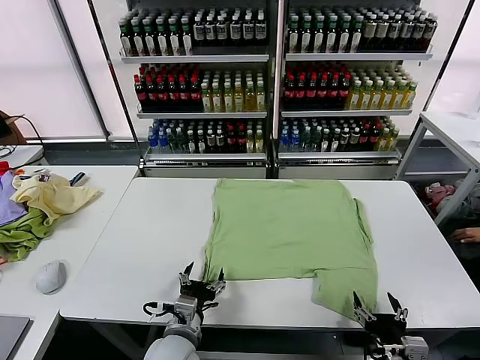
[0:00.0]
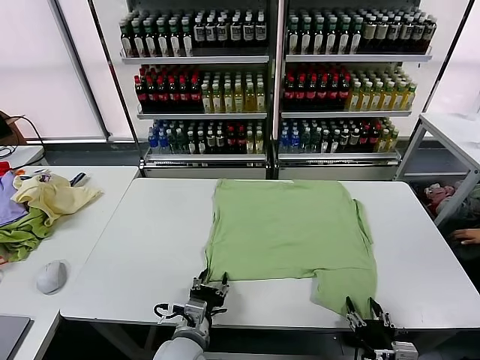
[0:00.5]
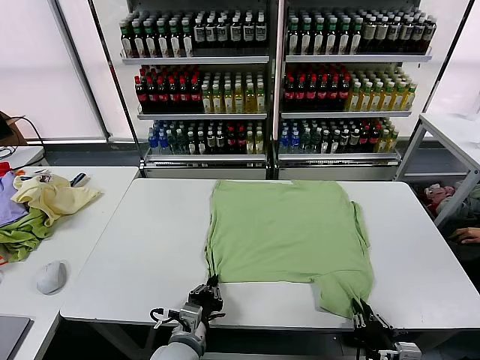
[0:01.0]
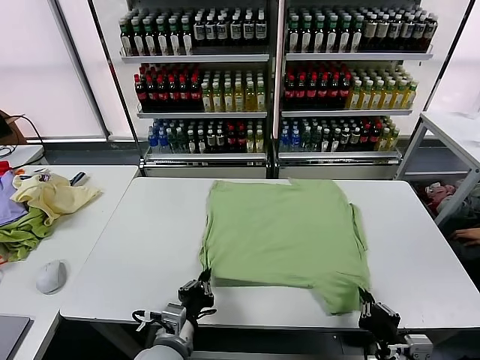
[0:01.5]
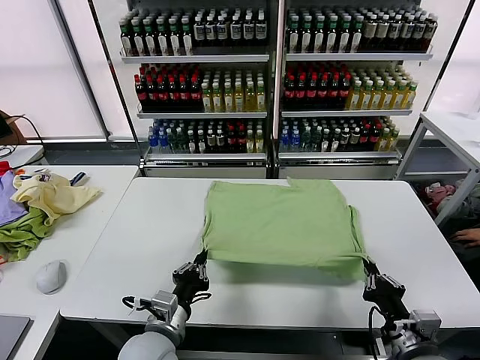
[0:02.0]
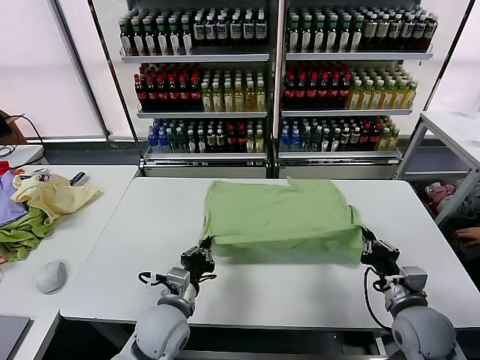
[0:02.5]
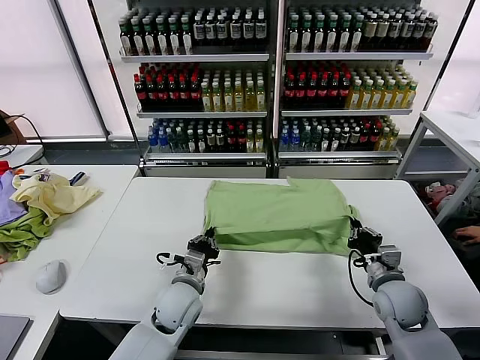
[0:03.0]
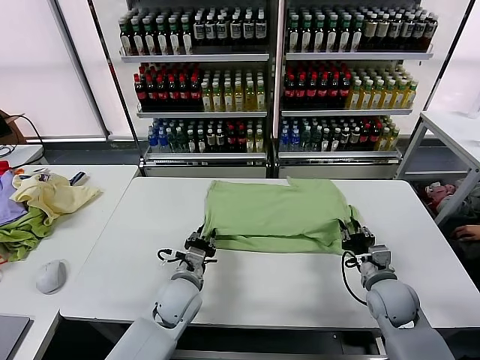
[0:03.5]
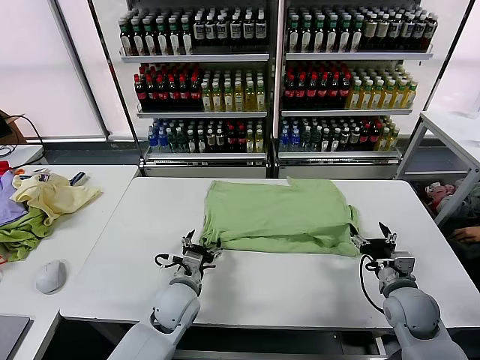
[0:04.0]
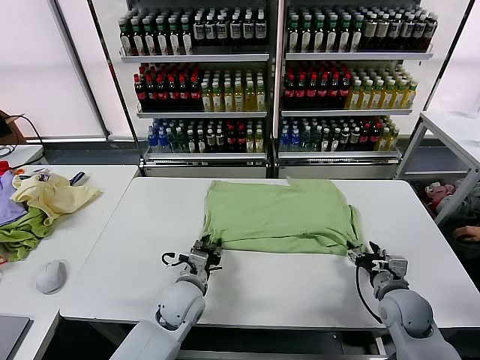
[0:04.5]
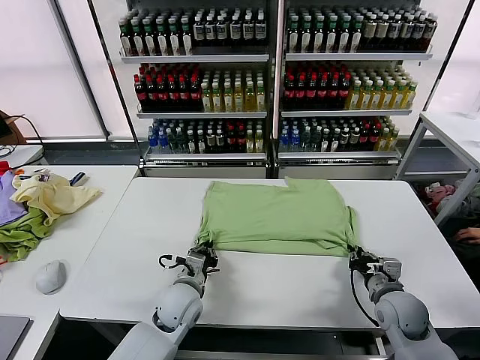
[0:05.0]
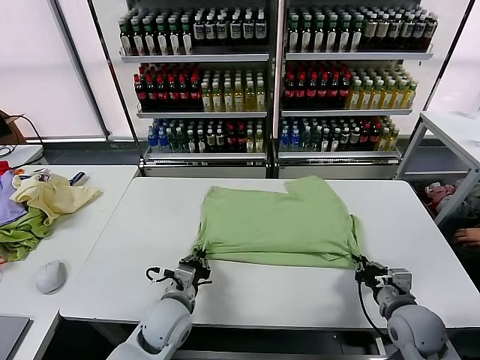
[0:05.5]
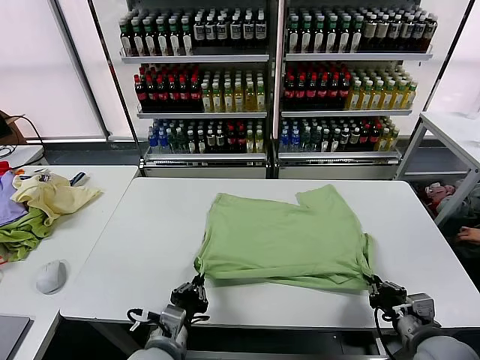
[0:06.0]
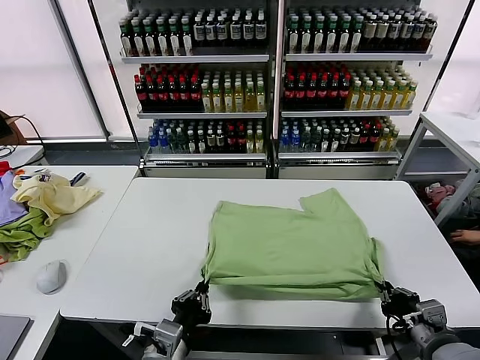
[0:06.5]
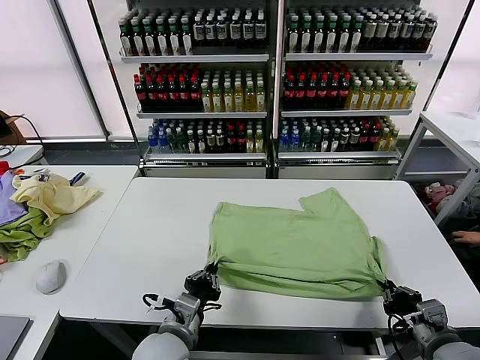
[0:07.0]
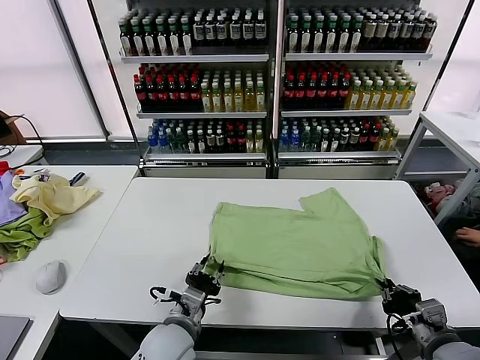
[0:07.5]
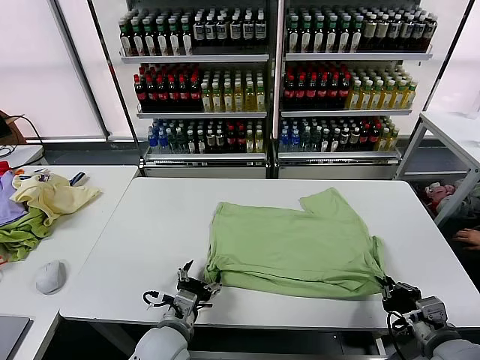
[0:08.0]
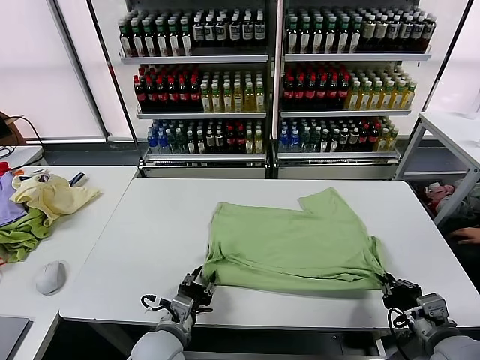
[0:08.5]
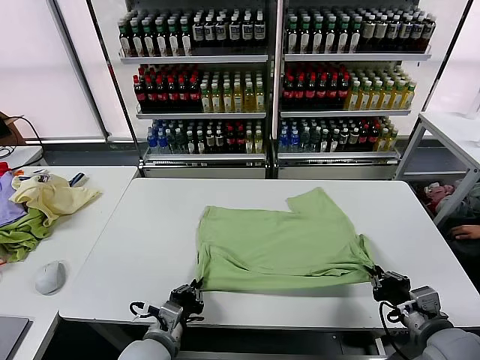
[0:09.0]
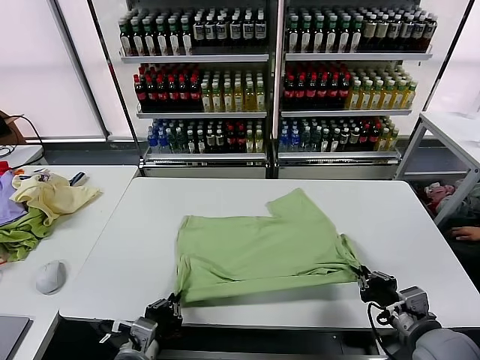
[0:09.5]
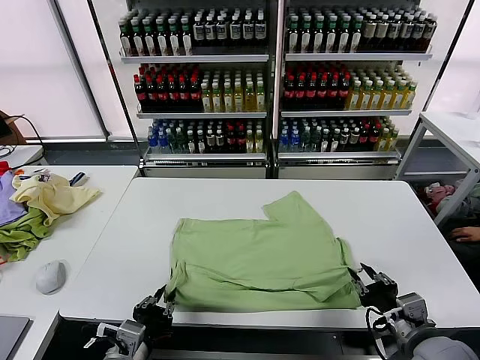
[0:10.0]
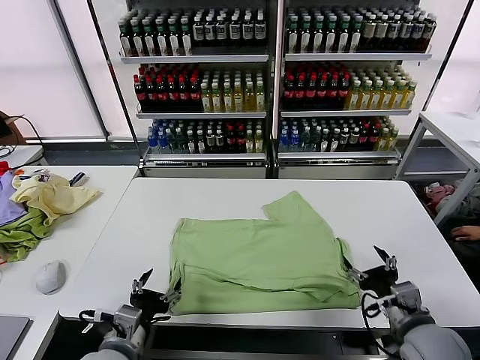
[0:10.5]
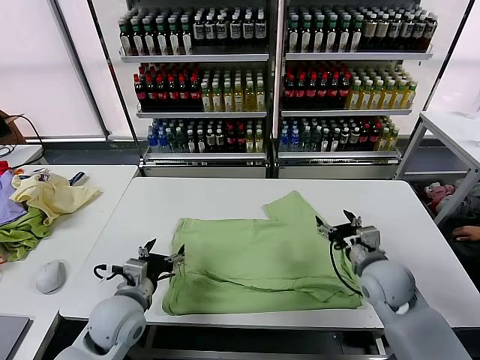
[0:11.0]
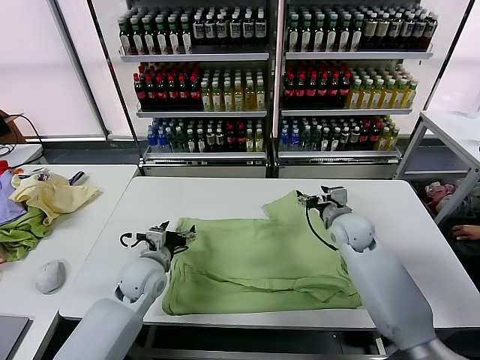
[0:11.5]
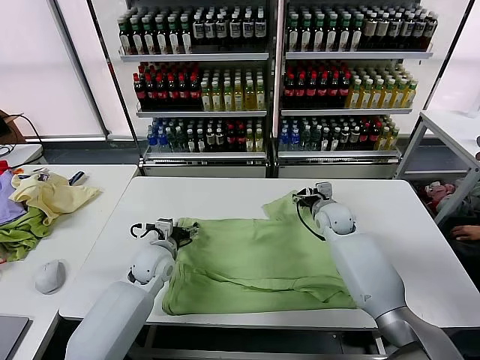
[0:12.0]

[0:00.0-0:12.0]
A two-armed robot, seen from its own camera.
Task of the whole recording: fold and organize the clothes.
Step, 0:00.0 to 0:01.0: use both grippers simultaneously to clamp the lower edge of the clothing fabric.
Step, 0:01.5 to 0:03.5: use both grippers to drag the lower edge of the fabric forward and fold it over the upper edge.
Step, 0:04.0 to 0:10.0: Drag the clothes downward with both gripper.
0:02.0 to 0:04.0: The two grippers go approximately 10 cm forward. The left gripper opens, while the right gripper opens.
0:04.0 to 0:06.0: The two grippers go approximately 15 cm backward. The right gripper closes its fingers; the left gripper closes its fingers.
0:06.0 to 0:08.0: The left gripper changes place by some 5 cm, and opens.
0:08.0 to 0:10.0: The right gripper opens up. Meanwhile the left gripper goes roughly 10 cm backward and to the left, and closes its fingers.
0:10.0 to 0:12.0: Both grippers move forward, some 30 cm. The right gripper opens its fingers. The left gripper opens.

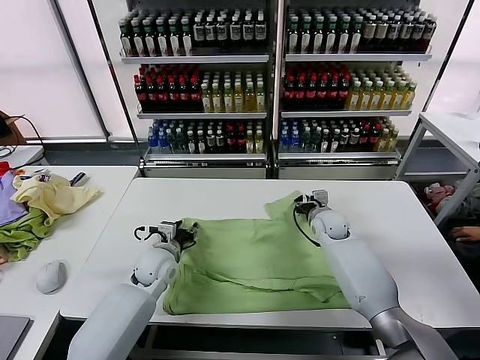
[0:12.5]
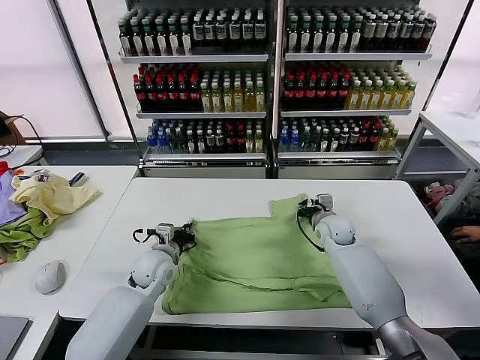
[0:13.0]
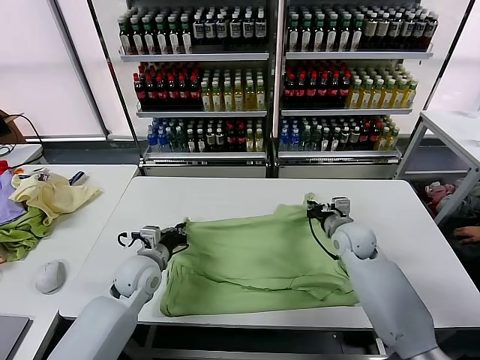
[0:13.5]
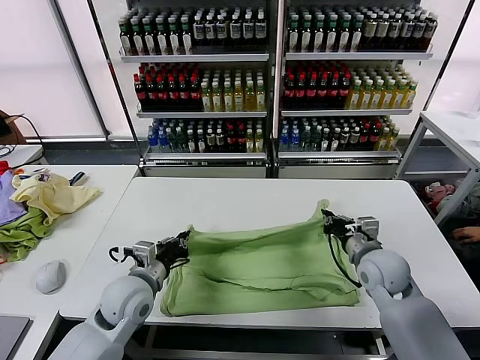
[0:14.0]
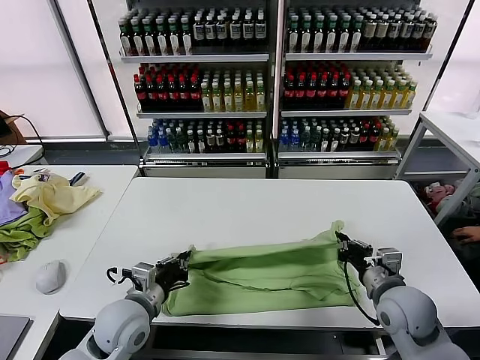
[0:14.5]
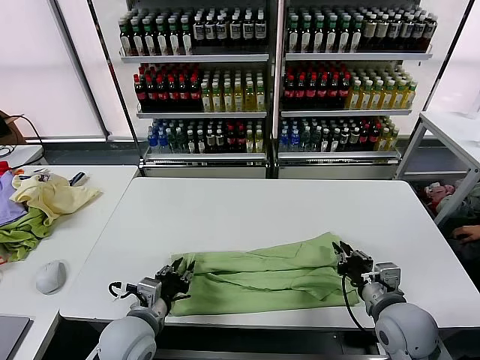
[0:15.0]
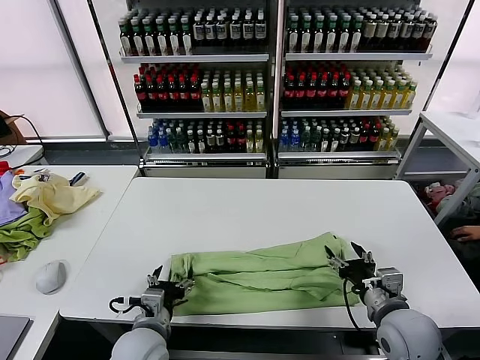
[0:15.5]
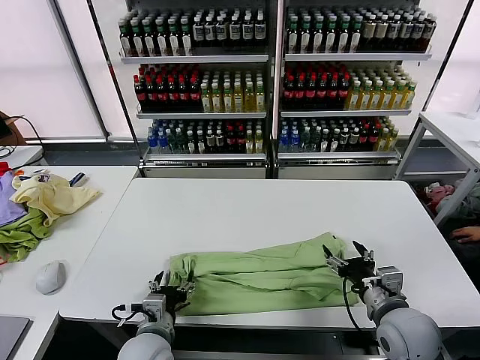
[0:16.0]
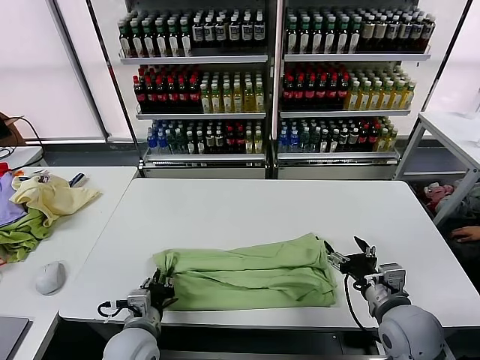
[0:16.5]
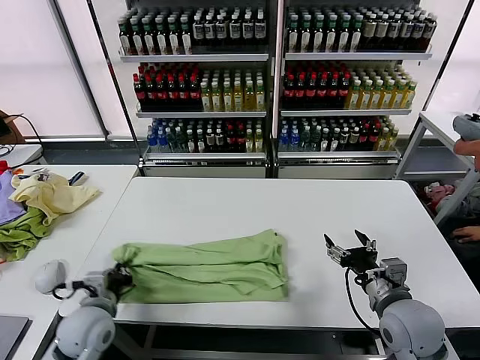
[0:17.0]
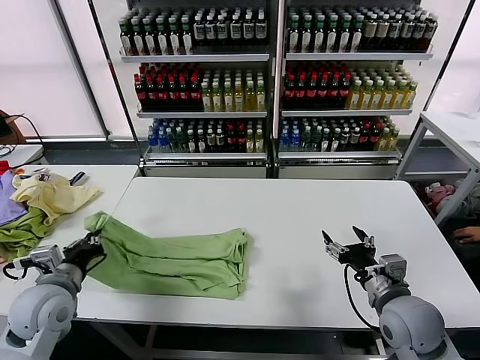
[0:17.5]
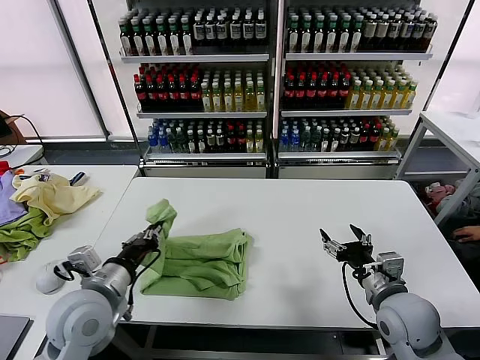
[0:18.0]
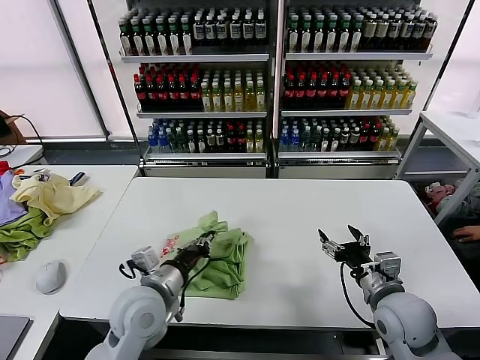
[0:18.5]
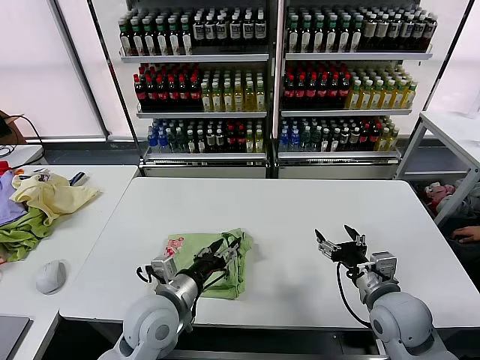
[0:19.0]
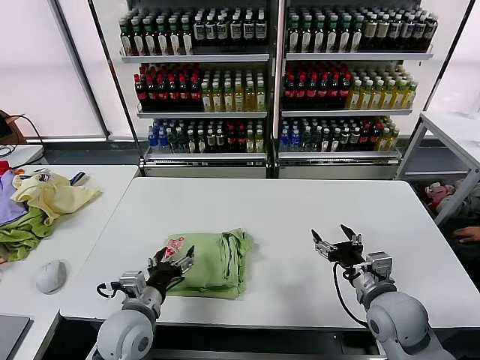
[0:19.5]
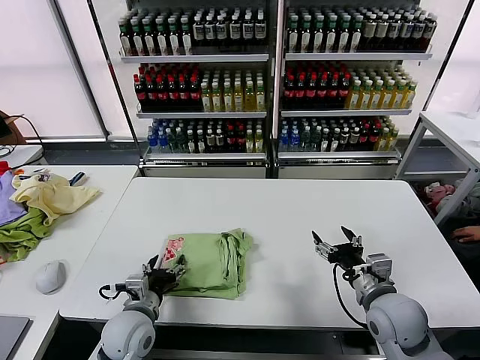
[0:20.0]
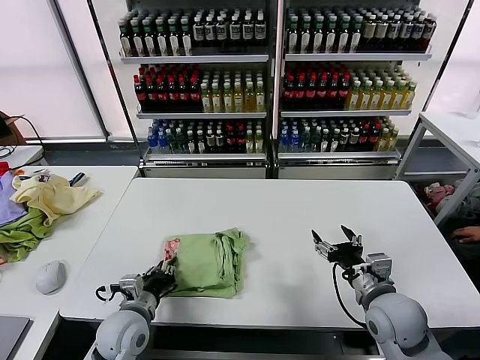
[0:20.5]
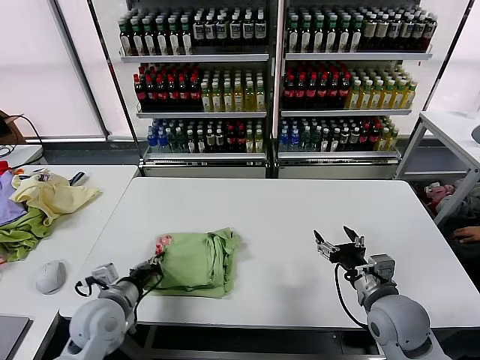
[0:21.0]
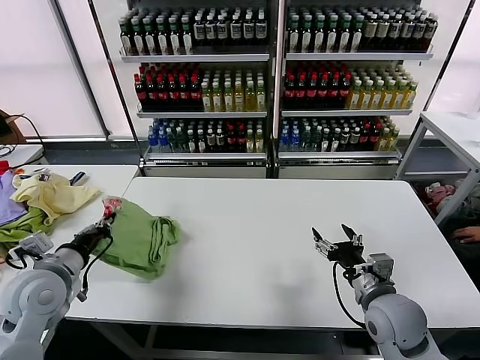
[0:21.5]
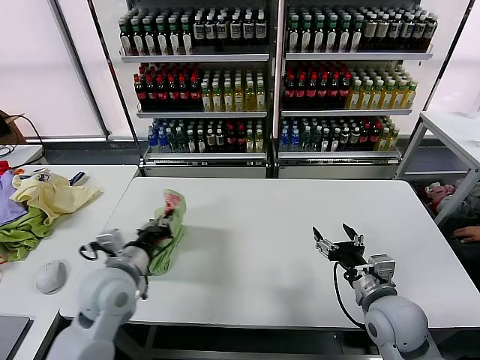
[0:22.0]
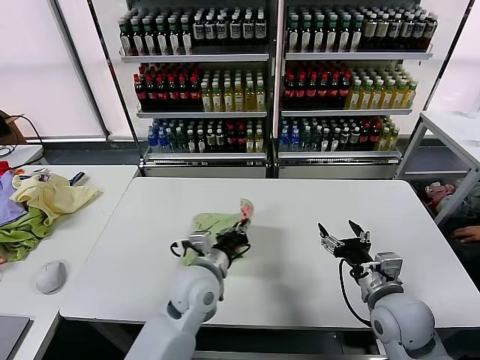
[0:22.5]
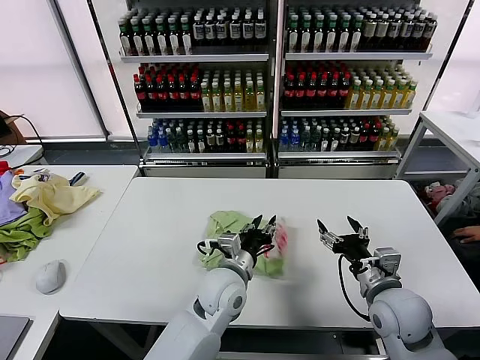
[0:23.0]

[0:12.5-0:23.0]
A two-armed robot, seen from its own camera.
Task of the whole recording: fold and organize the clothes.
Step, 0:13.5 to 0:15.0: use both grippers to drag the upper edge of the fabric backward and fold it over the lower edge.
Step, 0:15.5 to 0:16.5: use the left gripper to clamp the left edge of the fabric.
Step, 0:17.0 to 0:19.0: use the left gripper to drag the left edge of the fabric to the left and folds it over the right edge.
Step, 0:19.5 to 0:23.0: Flip the folded clothes over with left gripper.
0:12.5 to 0:14.5: The right gripper is displaced backward by roughly 25 cm, and closes its fingers. Meanwhile the left gripper moves backward, some 15 cm, and closes.
0:14.5 to 0:16.5: The left gripper is displaced downward by approximately 5 cm, and opens; the right gripper opens.
0:16.5 to 0:19.0: The left gripper shifts approximately 10 cm upward, and goes to the left and returns, about 15 cm each way.
0:19.0 to 0:21.0: The left gripper is displaced to the left and downward by about 15 cm, and closes its fingers.
0:21.0 to 0:23.0: The left gripper is displaced to the right by approximately 25 cm, and opens.

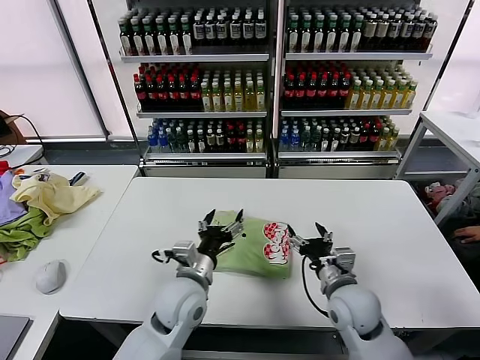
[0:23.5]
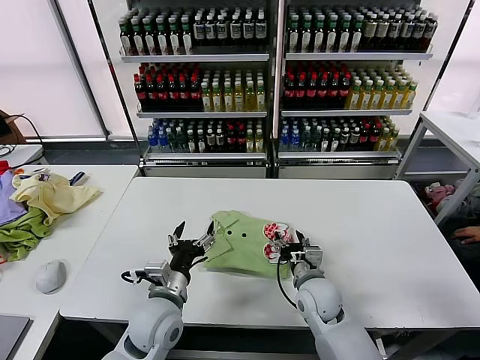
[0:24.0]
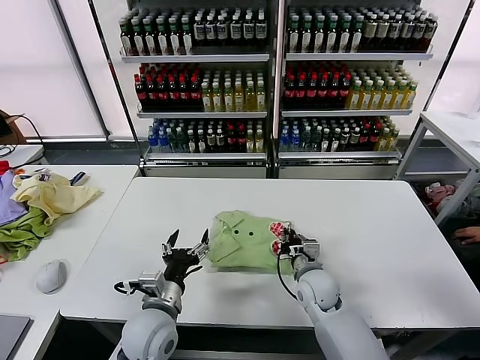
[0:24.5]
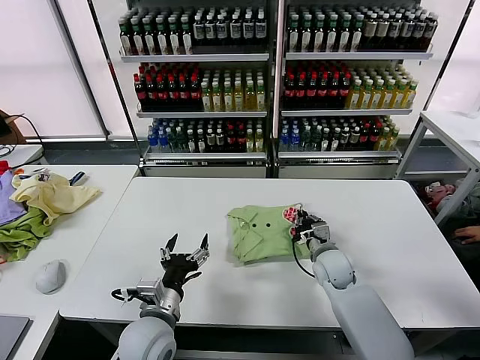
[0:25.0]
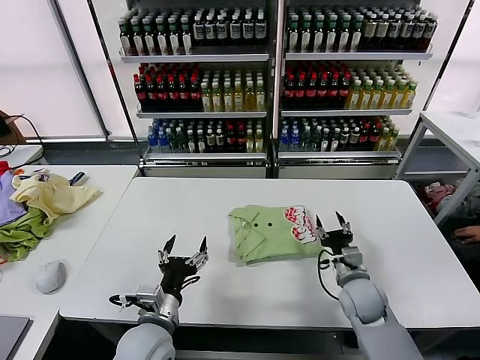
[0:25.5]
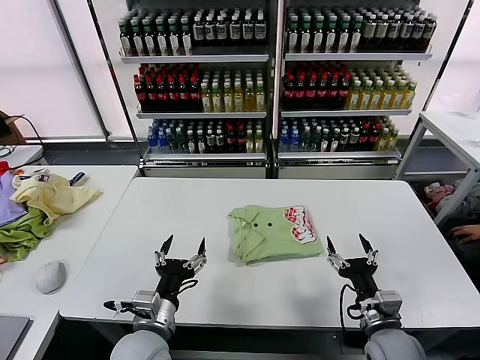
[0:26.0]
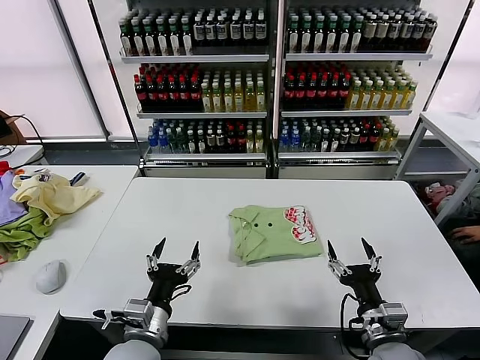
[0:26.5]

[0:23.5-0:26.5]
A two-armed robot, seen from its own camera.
Task of the whole recording: fold and organize the clothes.
Step, 0:23.5 to 0:25.0: Drag the clothes to the center of the table.
0:23.5 to 0:25.0: The left gripper is displaced backward and to the left by roughly 10 cm; the right gripper heads forward and downward, covering roughly 15 cm, and closes.
0:25.0 to 0:26.5: The right gripper is displaced backward by roughly 20 cm, and opens up.
